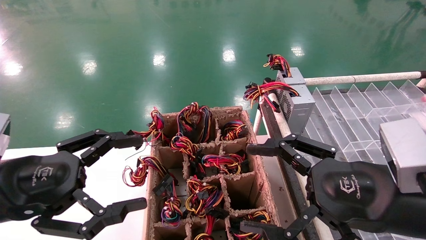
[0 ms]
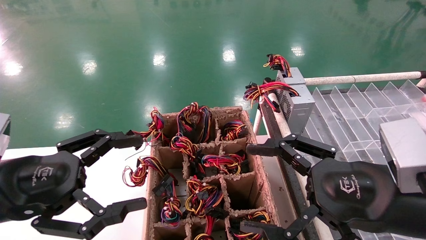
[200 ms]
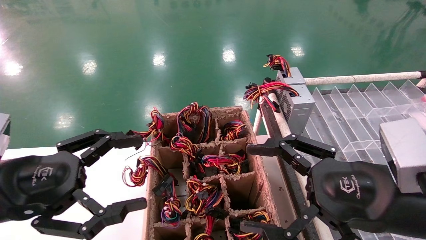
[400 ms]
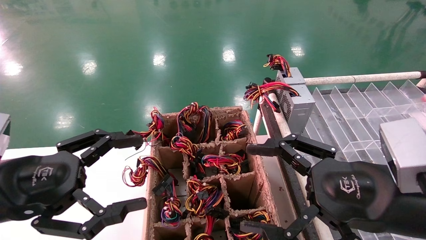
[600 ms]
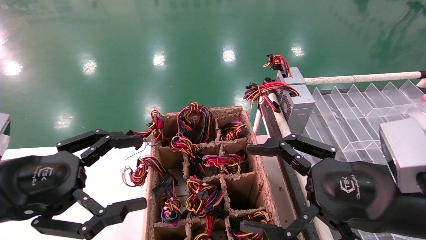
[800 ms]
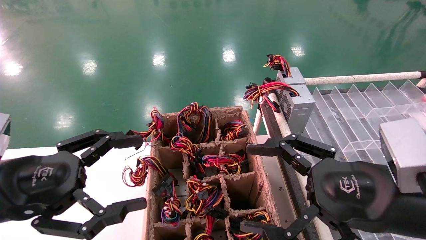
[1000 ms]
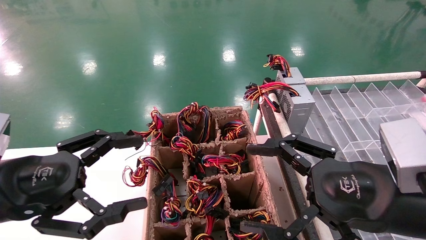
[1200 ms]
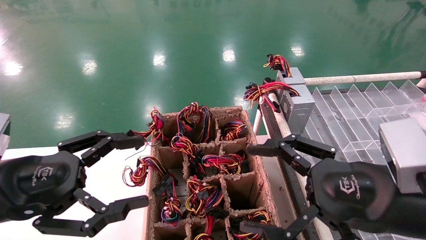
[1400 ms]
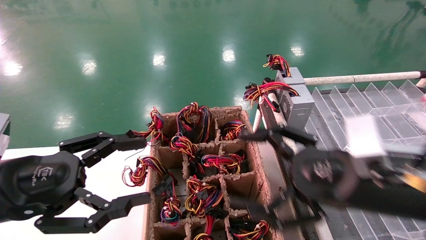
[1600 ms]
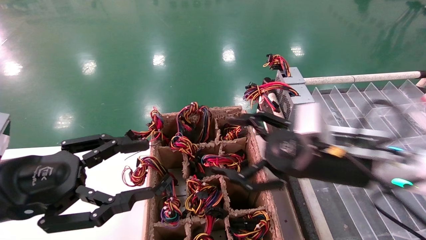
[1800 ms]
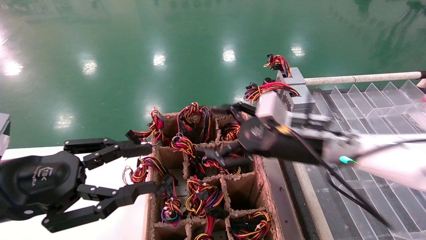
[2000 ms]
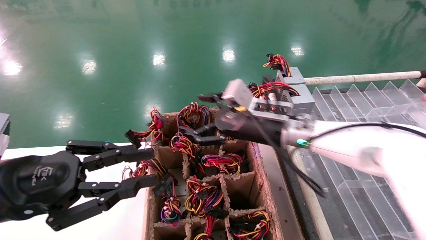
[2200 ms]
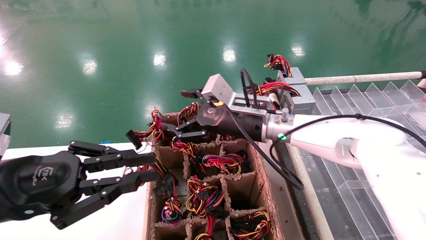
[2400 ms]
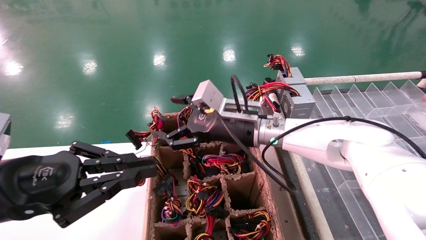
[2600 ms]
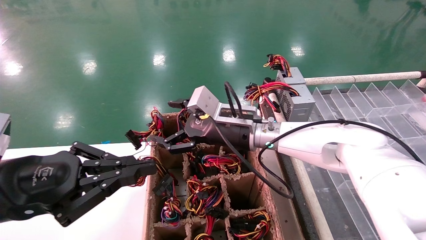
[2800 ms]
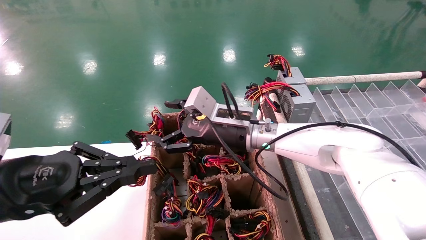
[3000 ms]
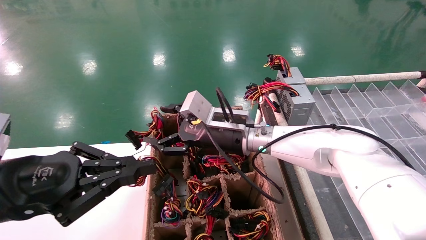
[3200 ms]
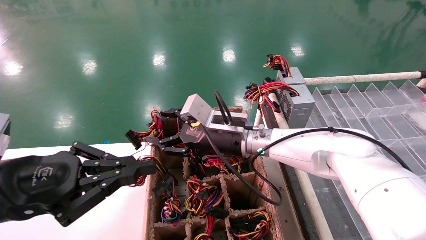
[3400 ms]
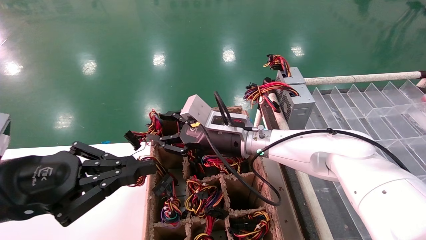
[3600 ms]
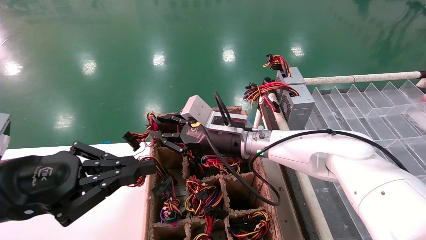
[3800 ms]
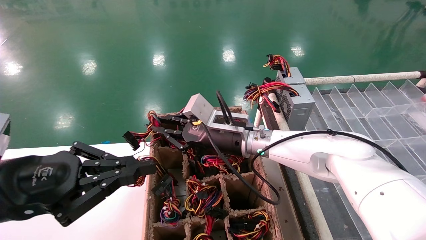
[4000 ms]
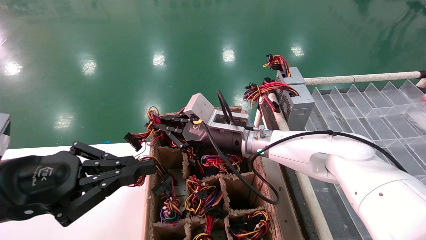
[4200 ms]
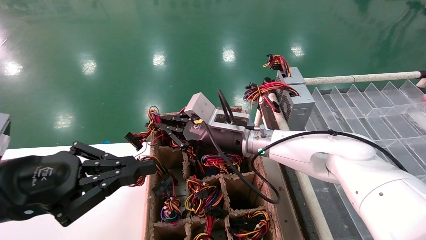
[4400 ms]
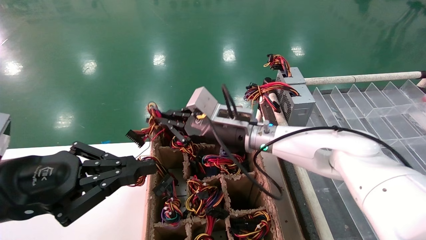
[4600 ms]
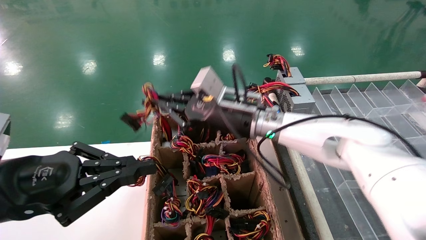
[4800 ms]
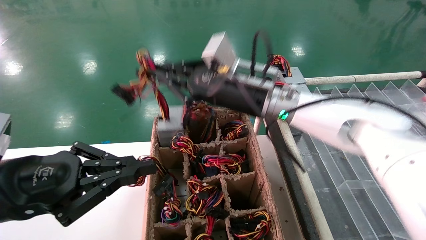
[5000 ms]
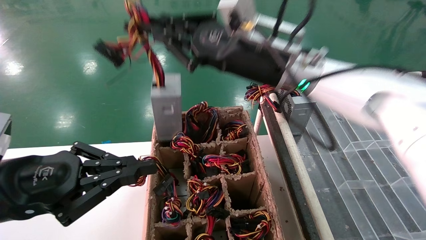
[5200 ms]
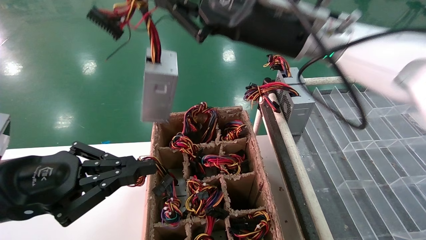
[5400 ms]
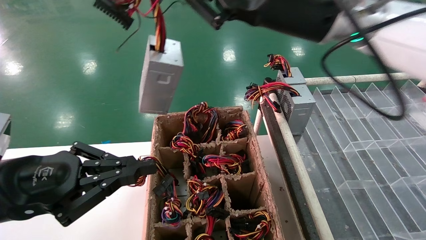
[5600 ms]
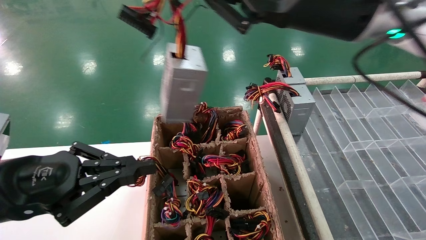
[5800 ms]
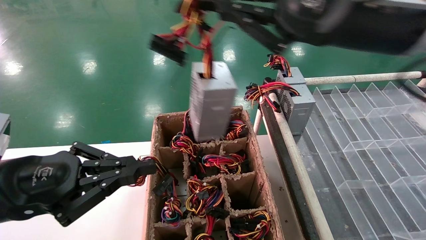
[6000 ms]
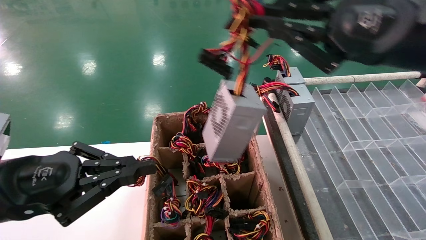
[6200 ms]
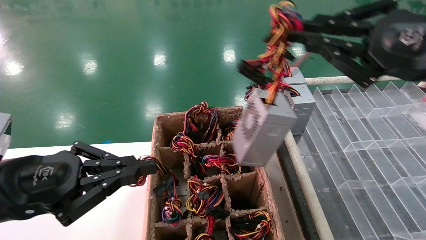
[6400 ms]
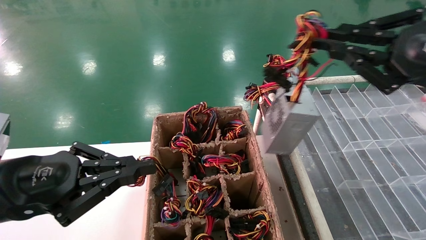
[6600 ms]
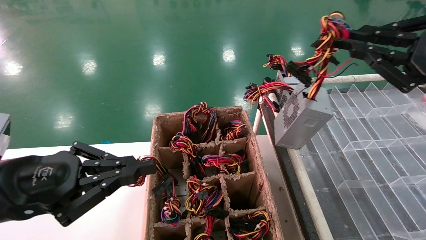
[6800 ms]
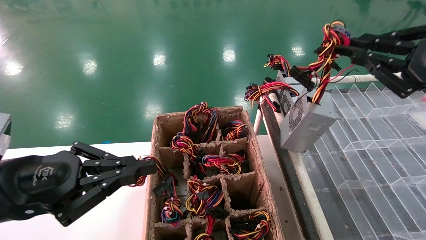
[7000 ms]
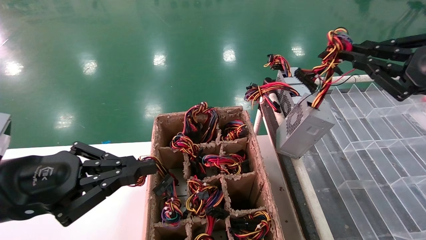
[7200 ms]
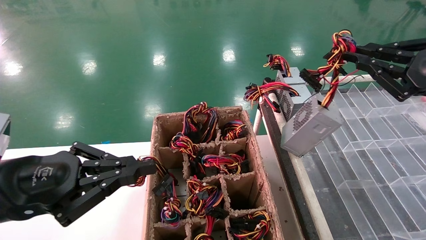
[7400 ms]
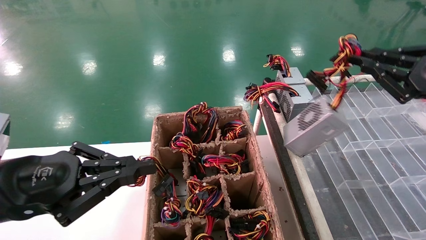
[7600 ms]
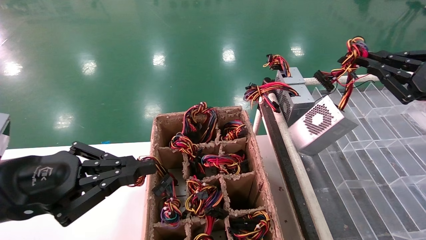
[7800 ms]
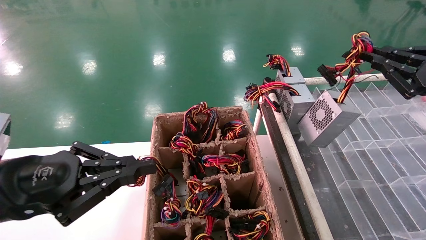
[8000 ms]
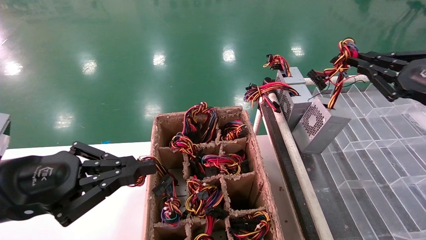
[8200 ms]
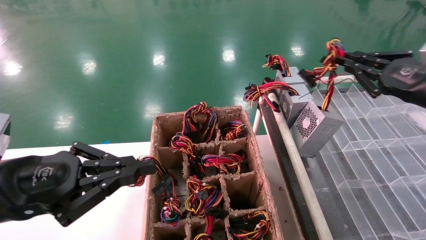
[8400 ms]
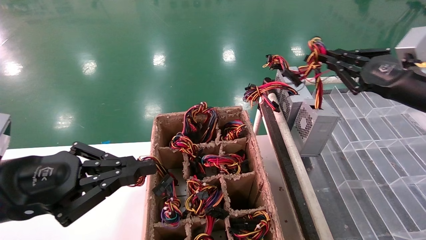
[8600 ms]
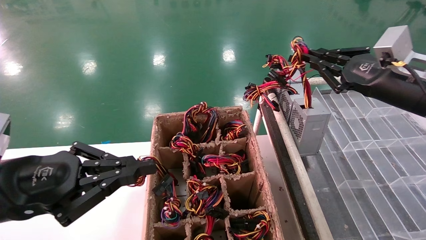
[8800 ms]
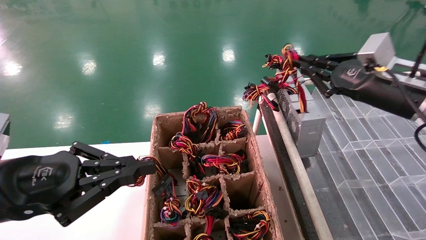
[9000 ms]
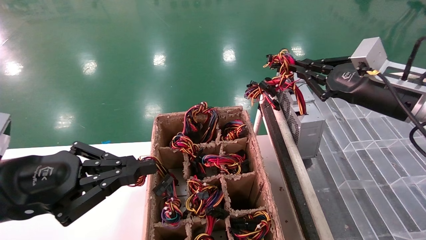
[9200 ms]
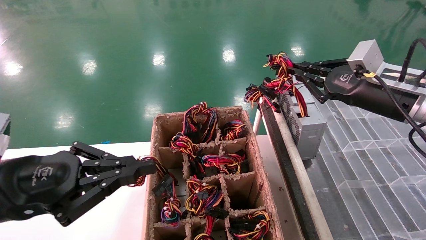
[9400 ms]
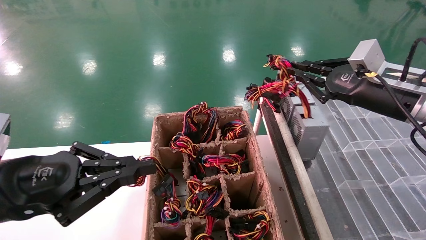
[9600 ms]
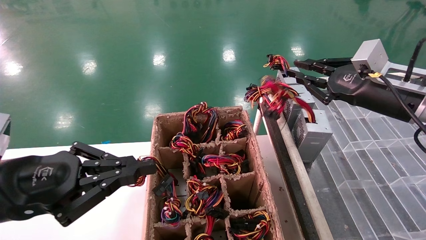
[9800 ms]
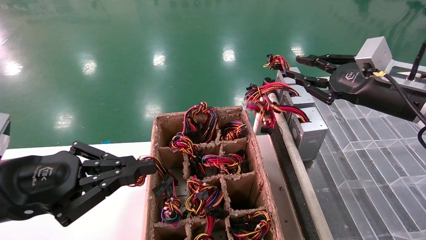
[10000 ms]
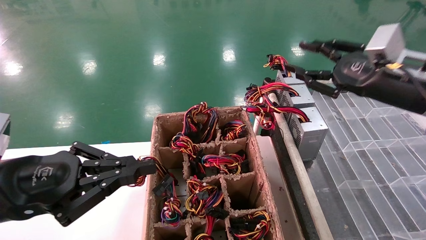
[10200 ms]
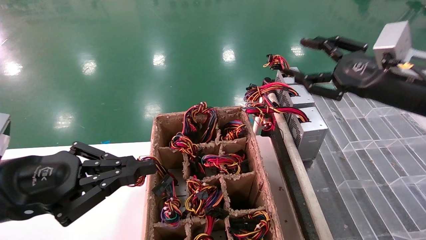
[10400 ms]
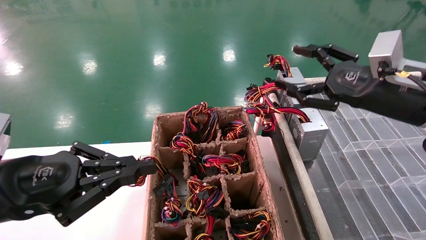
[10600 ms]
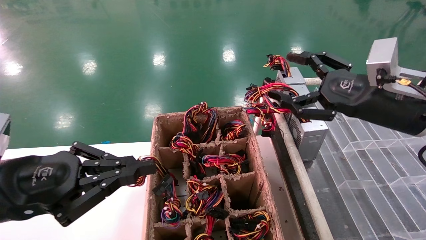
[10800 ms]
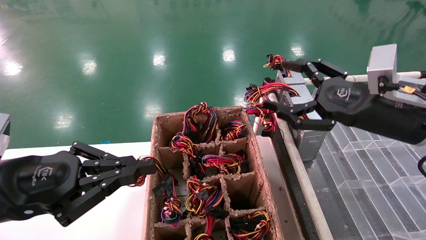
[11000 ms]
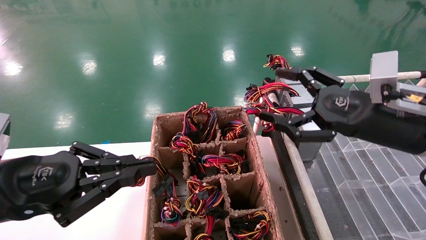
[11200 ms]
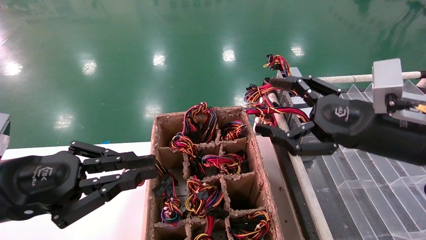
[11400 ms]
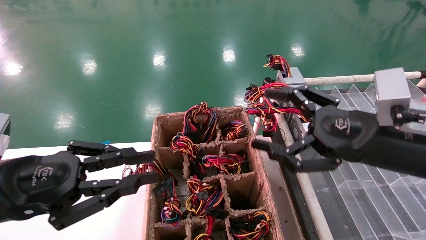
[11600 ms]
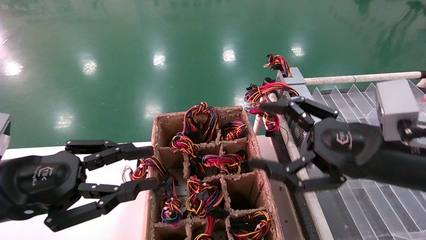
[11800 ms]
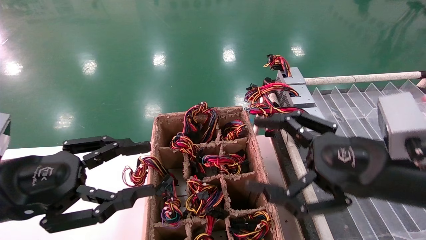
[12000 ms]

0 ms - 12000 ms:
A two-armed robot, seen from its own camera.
Step, 2000 ms - 4200 ms: Grab the main unit power supply from the containment box.
Step, 4400 ms - 10000 ms: Place the main unit power supply in the designated area.
0 ms - 1600 ms: The right gripper moves forward, some 5 cm.
1600 ms - 3000 ms: The left gripper closes up. The right gripper goes some 25 cm to the left and forward.
3000 ms - 4400 ms: The right gripper closes its fingers.
4400 ms - 6000 ms: The right gripper travels upward, to the right and backward by roughly 30 cm.
6000 ms - 7600 ms: The right gripper heads to the right and downward, covering some 25 cm.
7600 ms - 9000 ms: The right gripper shifts approximately 10 cm forward and to the left.
9000 ms - 10400 ms: The right gripper opens its fingers.
10400 ms - 12000 ms: The right gripper shifts about 15 cm backward, to the left and downward, and opens; the left gripper opens up.

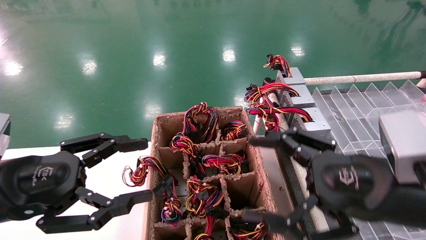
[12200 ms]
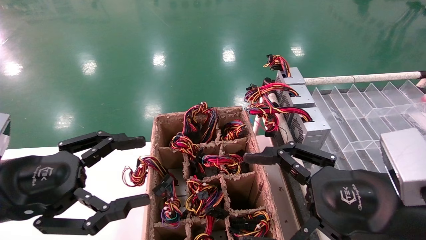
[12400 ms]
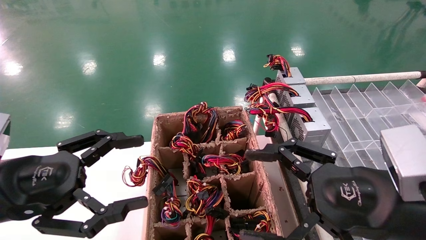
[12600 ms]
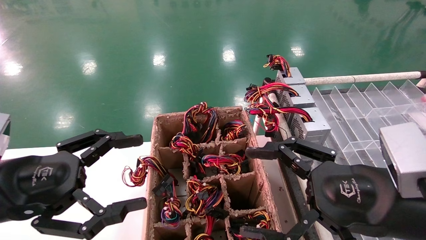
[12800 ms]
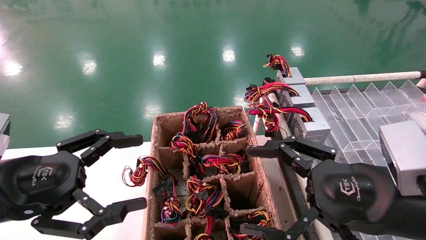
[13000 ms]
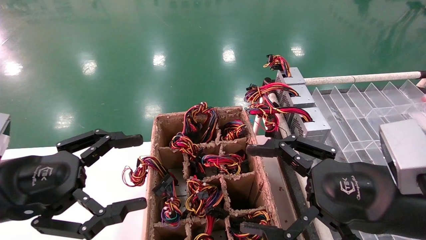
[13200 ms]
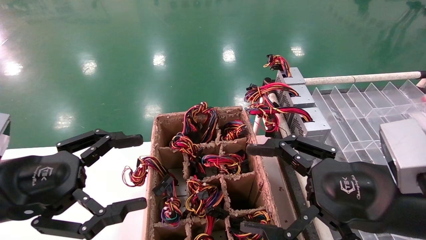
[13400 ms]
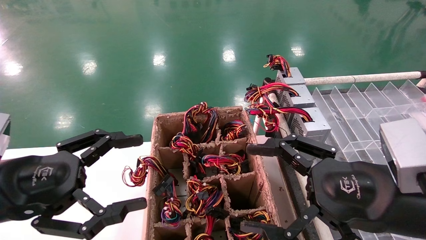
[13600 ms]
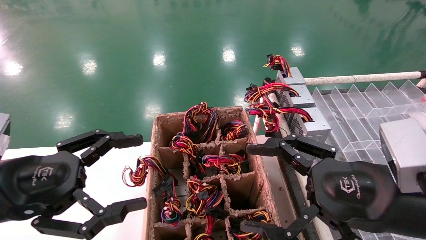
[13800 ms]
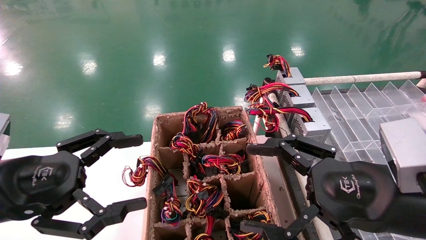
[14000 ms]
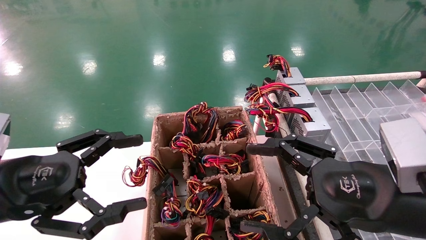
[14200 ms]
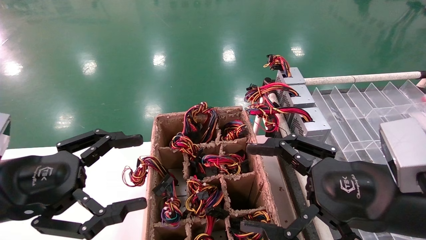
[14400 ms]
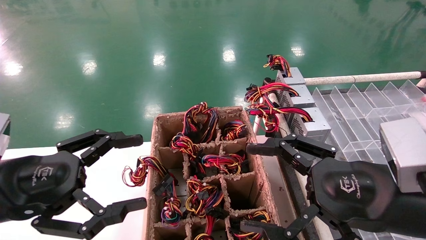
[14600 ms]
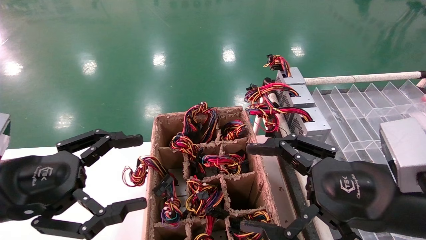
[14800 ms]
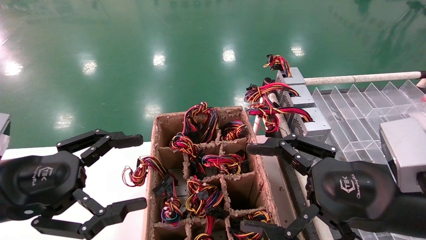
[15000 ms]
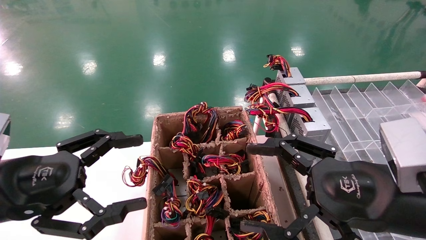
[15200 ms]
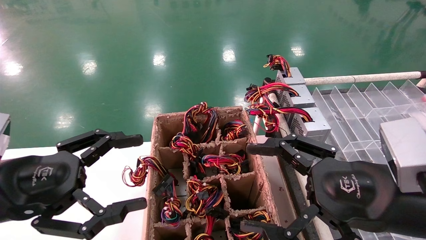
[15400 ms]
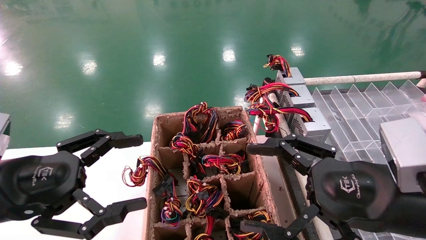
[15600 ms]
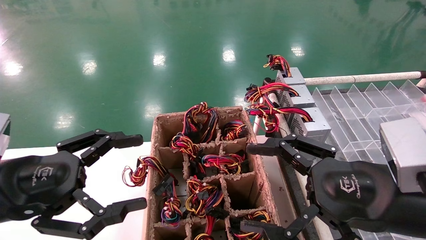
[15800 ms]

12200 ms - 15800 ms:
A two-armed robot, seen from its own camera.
12200 ms - 14000 ms: The left gripper opens.
14000 ms - 15800 ms: The two grippers keep their place.

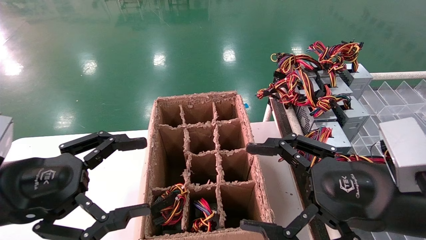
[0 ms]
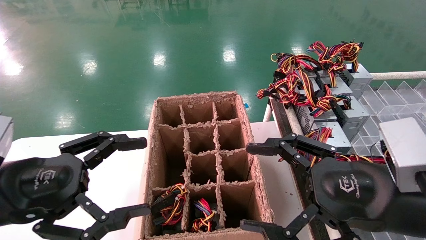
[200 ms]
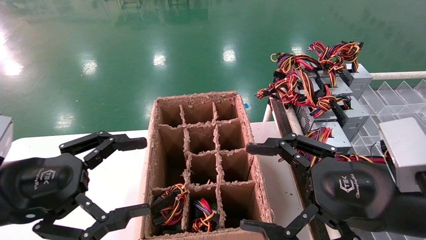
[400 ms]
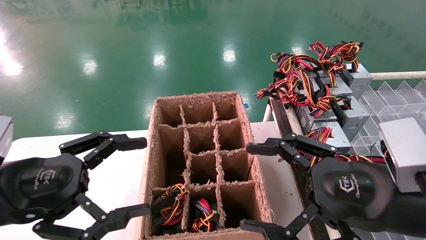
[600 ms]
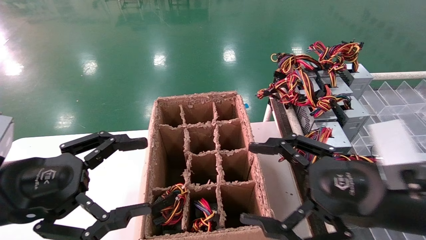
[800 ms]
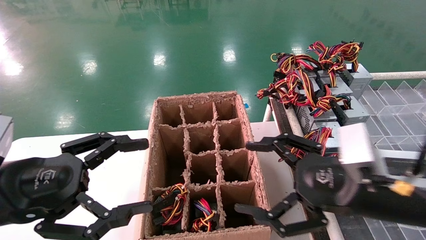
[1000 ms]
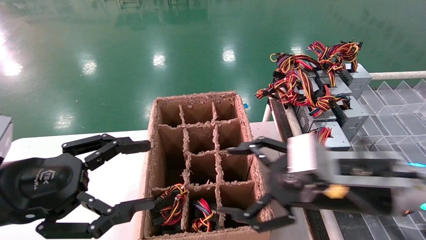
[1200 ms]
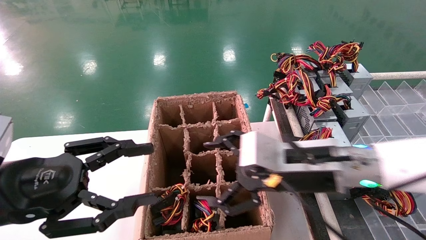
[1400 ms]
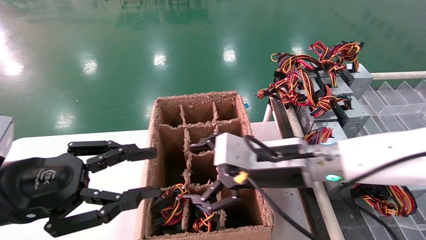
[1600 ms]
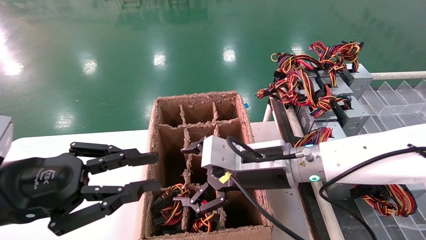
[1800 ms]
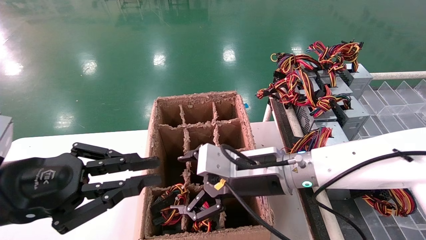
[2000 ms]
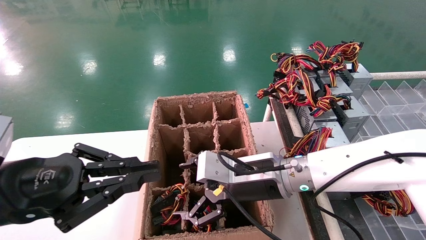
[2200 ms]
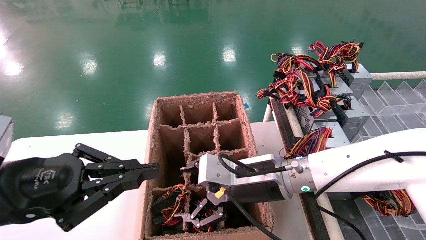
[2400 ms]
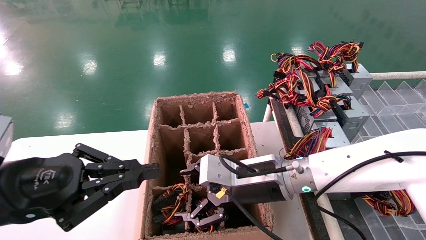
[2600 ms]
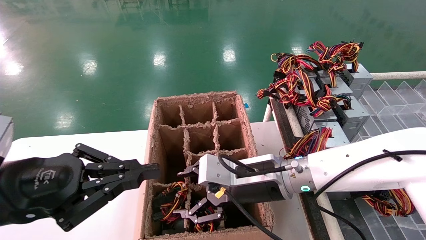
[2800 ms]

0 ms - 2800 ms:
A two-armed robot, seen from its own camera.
0 ms - 1400 ms: The right gripper heads forward and to the left, covering some 15 cm.
1400 ms - 2800 ms: The right gripper shifts some 5 cm to the left, while the left gripper closes up.
